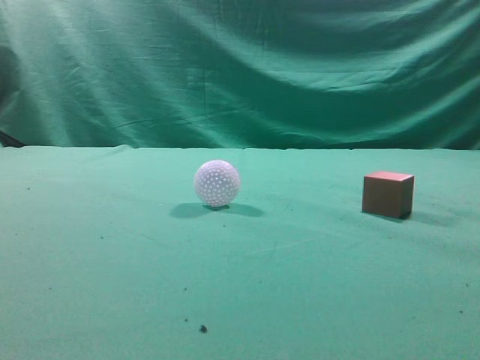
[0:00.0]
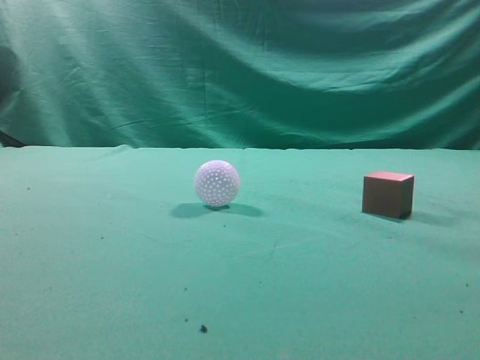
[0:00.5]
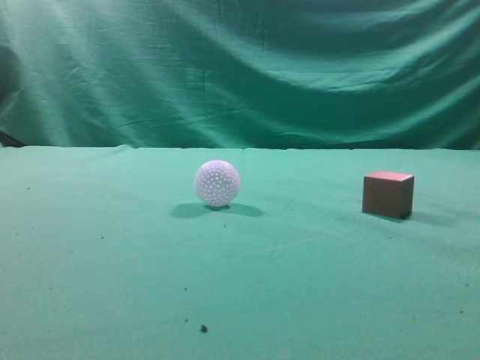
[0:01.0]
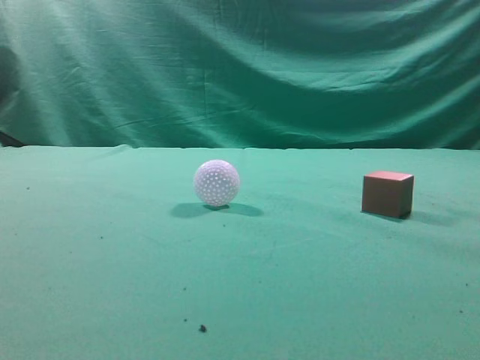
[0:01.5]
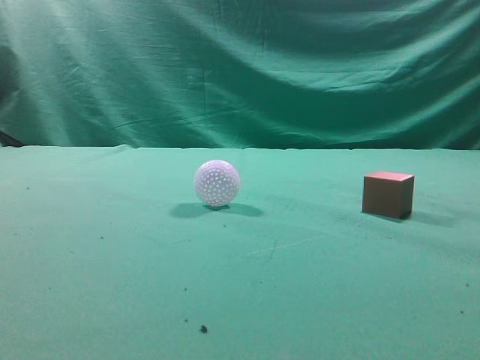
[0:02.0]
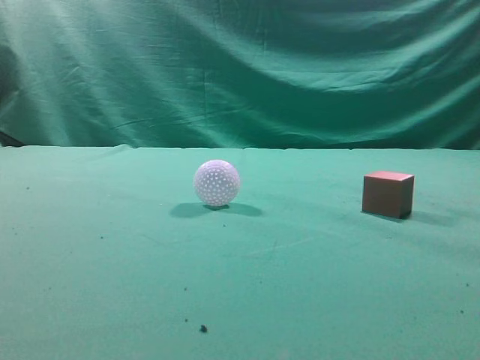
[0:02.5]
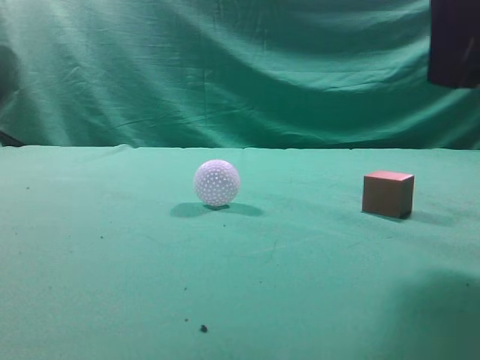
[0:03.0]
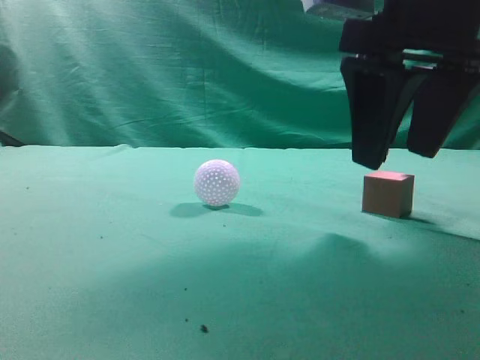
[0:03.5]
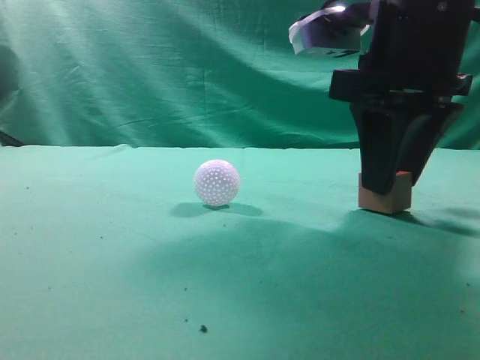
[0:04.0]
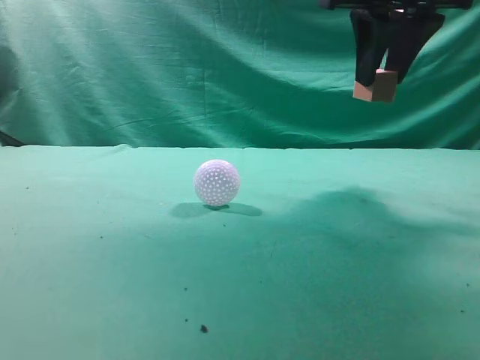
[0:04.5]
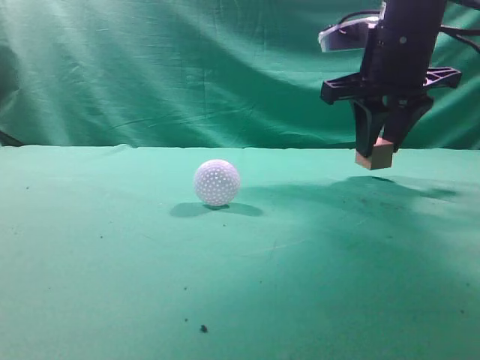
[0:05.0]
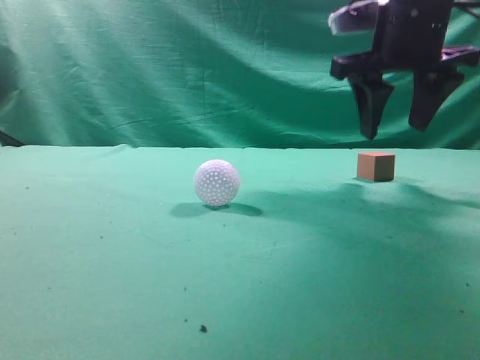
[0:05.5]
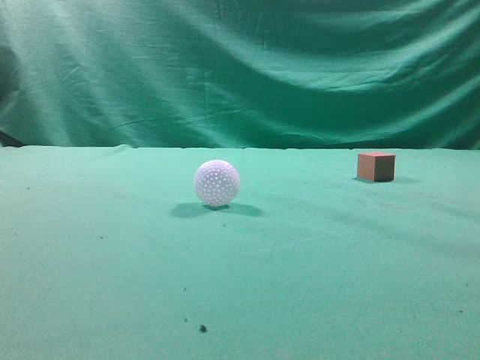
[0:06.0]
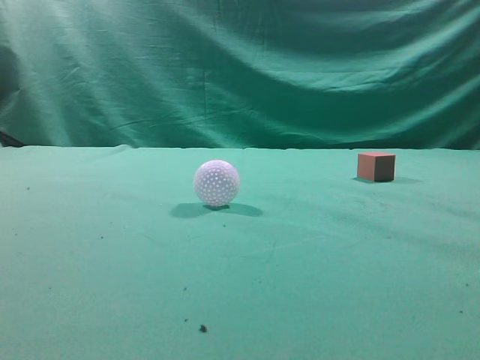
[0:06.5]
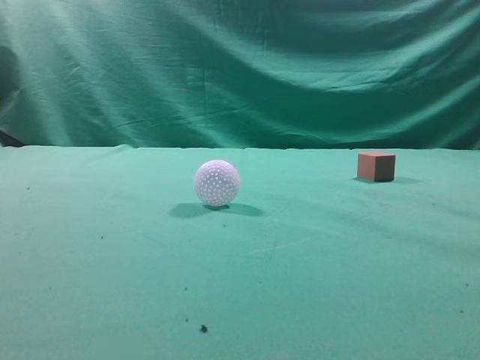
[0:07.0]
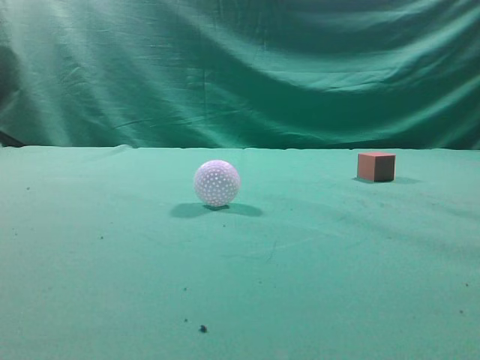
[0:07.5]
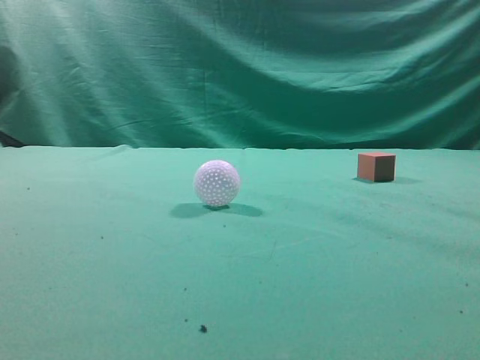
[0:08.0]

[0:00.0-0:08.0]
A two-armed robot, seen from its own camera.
Task of the whole recording: pick up the cube block and place it in another position on the table.
Step, 0:00.0 to 0:04.0: Pick up the small cube.
Step, 0:04.5 to 0:05.0: Place the small cube on the ahead of the table.
0:02.0 to 0:04.0: The right gripper shifts roughly 25 cm forward, to the left and downward, and opens its fingers.
0:04.0 to 0:06.0: The right gripper moves up and down over approximately 15 cm, changing direction 2 times, and closes its fingers.
